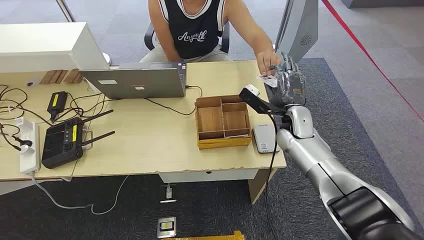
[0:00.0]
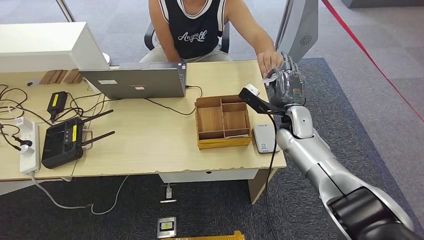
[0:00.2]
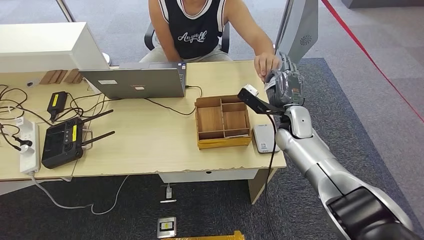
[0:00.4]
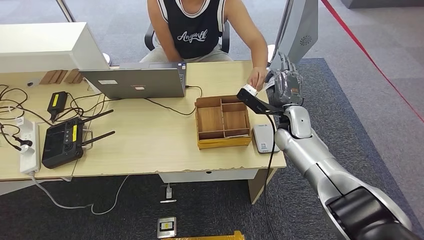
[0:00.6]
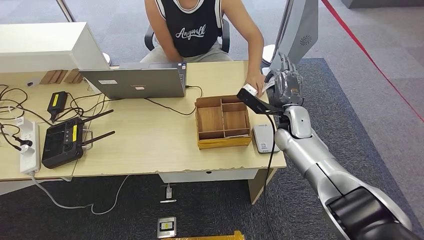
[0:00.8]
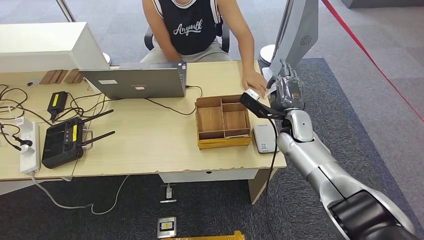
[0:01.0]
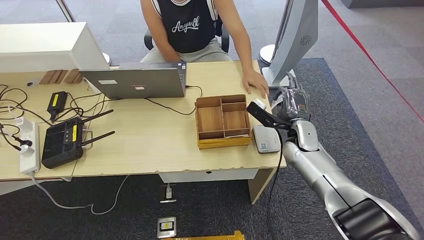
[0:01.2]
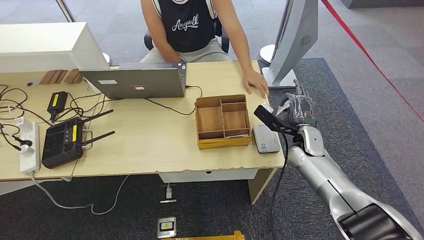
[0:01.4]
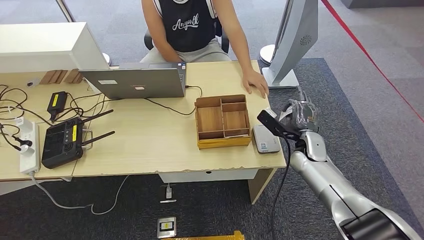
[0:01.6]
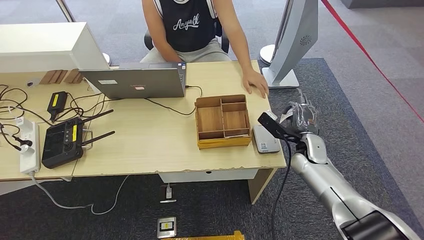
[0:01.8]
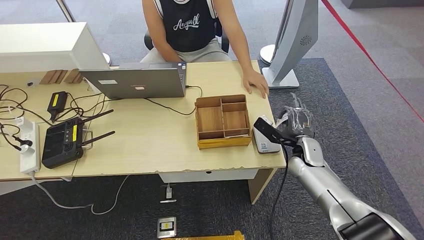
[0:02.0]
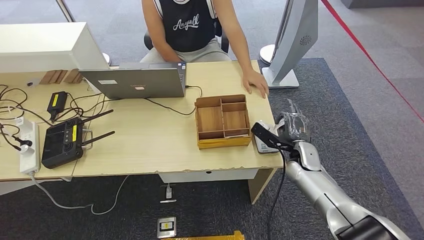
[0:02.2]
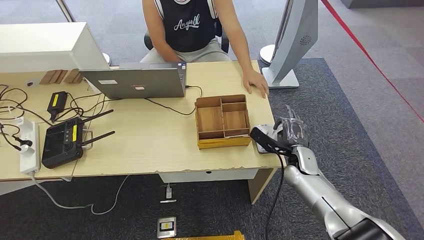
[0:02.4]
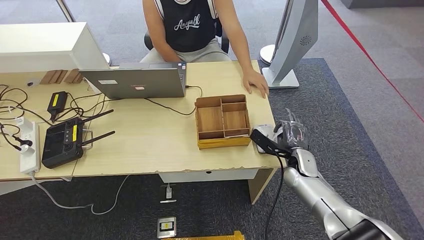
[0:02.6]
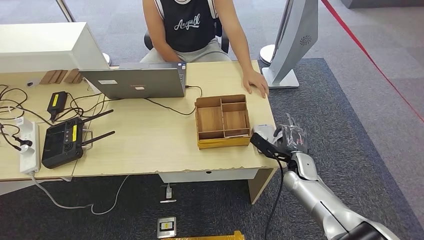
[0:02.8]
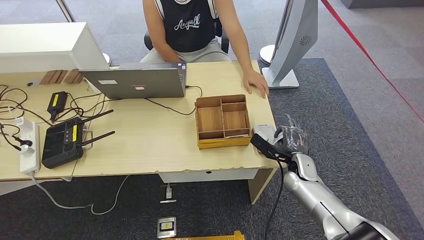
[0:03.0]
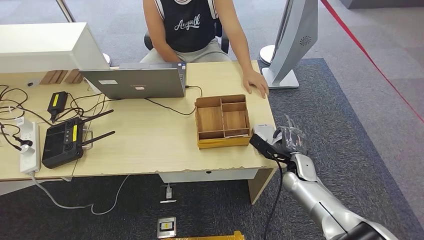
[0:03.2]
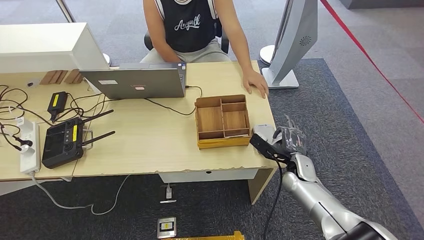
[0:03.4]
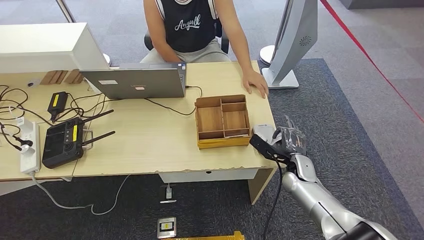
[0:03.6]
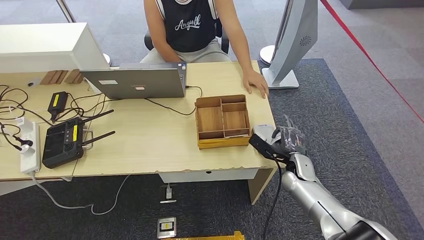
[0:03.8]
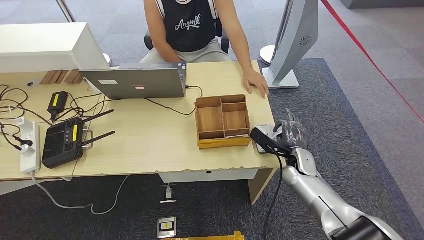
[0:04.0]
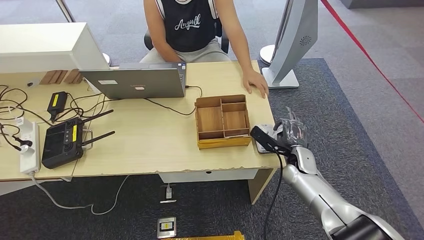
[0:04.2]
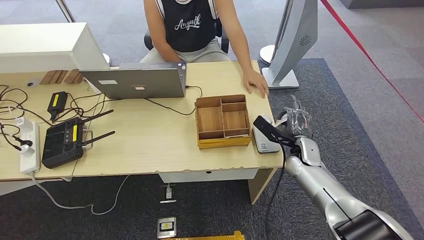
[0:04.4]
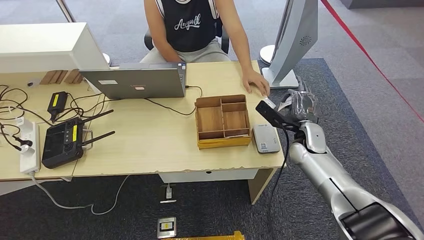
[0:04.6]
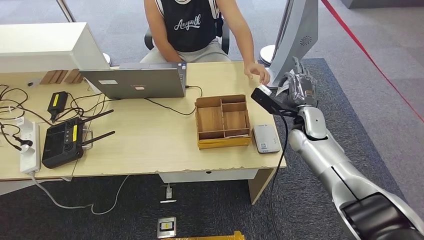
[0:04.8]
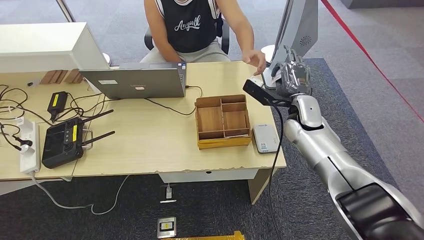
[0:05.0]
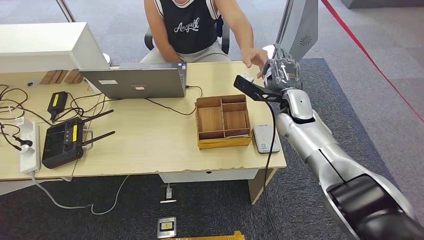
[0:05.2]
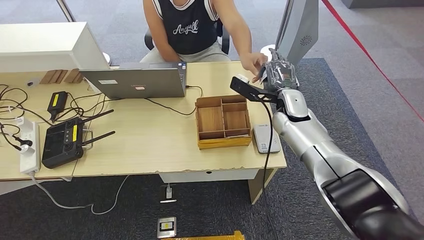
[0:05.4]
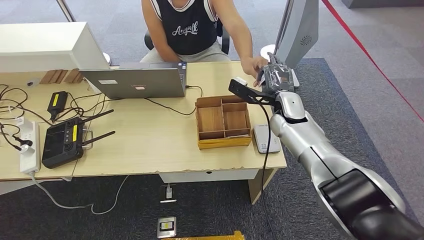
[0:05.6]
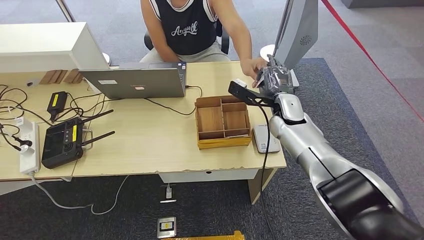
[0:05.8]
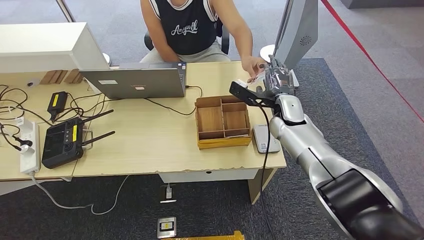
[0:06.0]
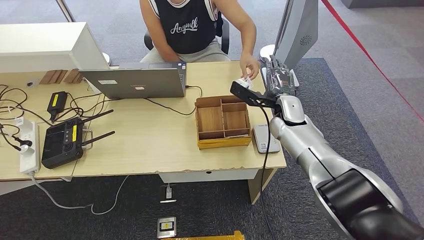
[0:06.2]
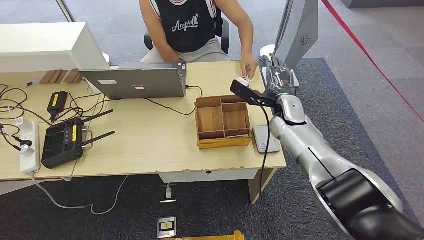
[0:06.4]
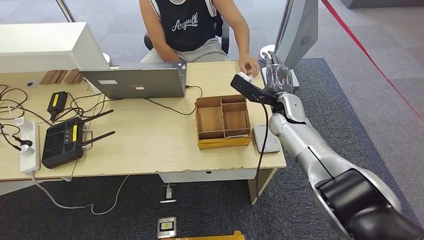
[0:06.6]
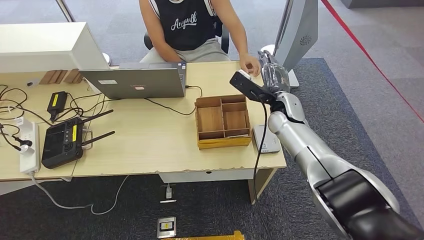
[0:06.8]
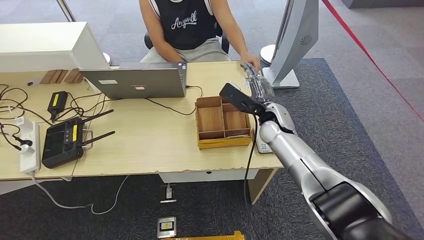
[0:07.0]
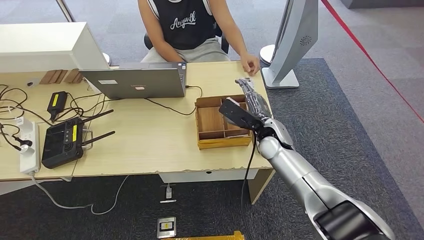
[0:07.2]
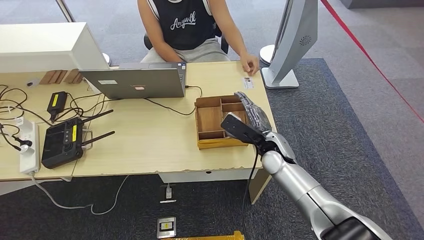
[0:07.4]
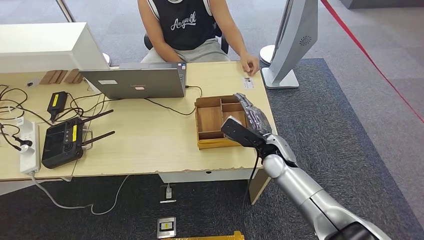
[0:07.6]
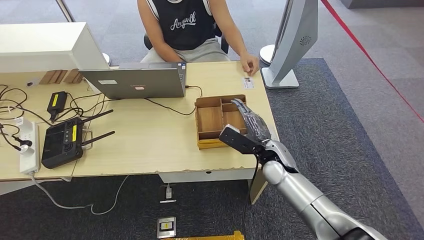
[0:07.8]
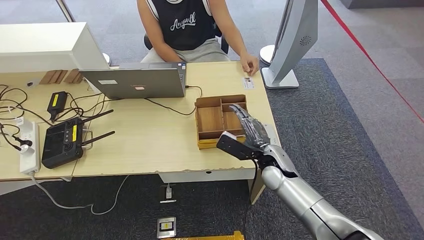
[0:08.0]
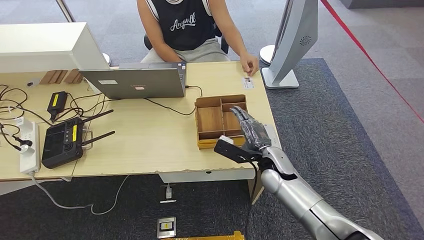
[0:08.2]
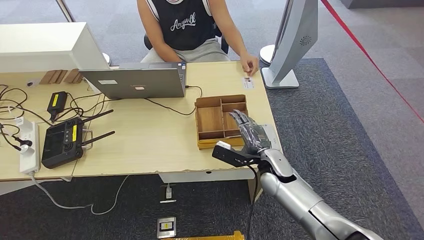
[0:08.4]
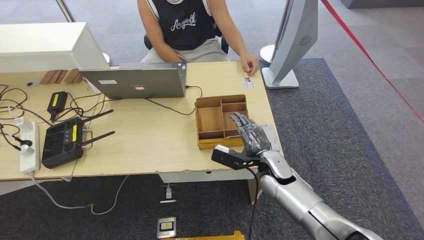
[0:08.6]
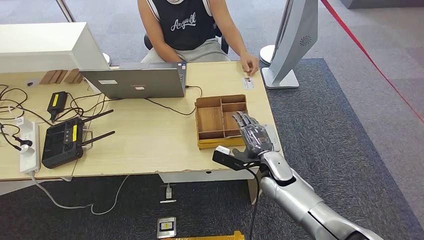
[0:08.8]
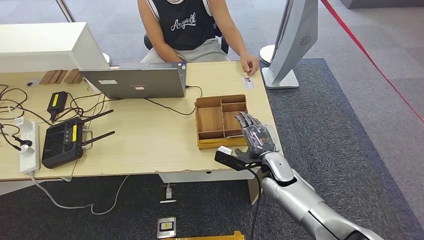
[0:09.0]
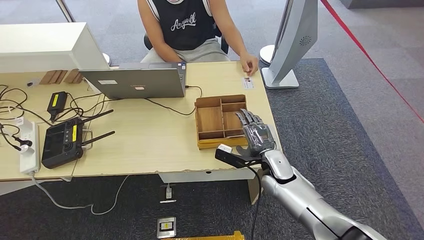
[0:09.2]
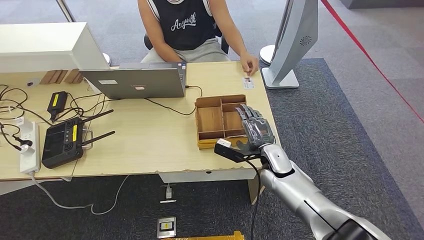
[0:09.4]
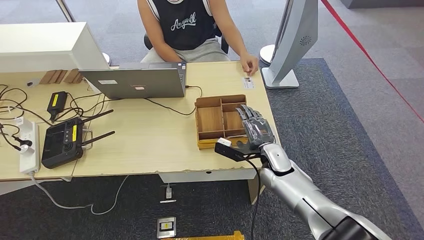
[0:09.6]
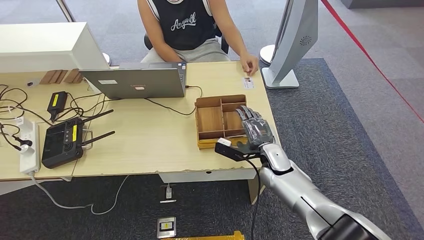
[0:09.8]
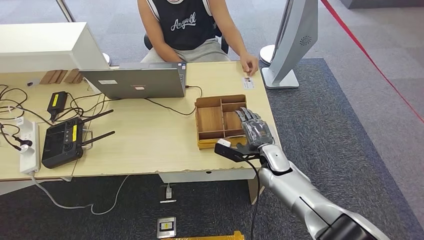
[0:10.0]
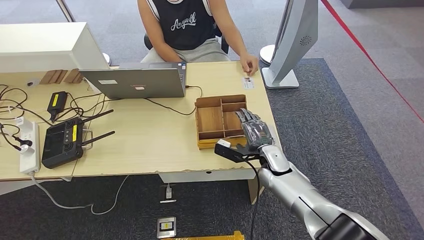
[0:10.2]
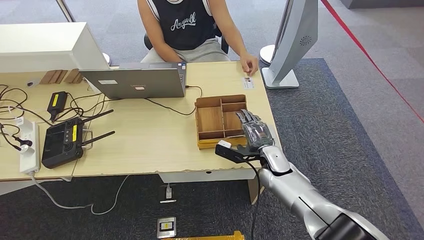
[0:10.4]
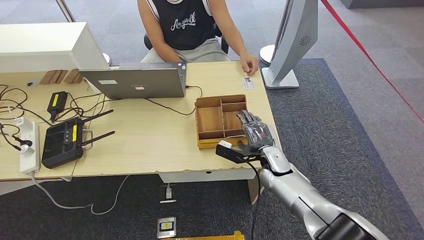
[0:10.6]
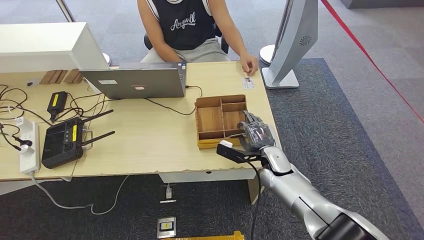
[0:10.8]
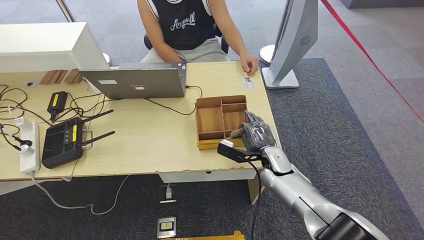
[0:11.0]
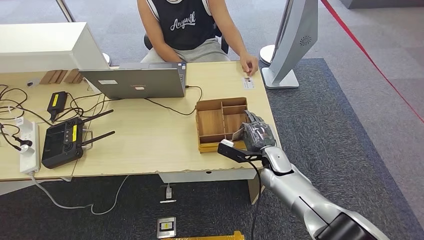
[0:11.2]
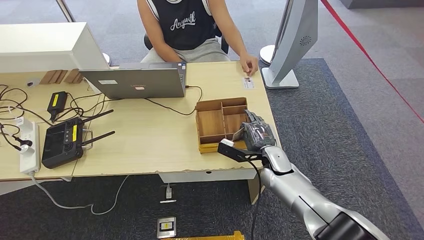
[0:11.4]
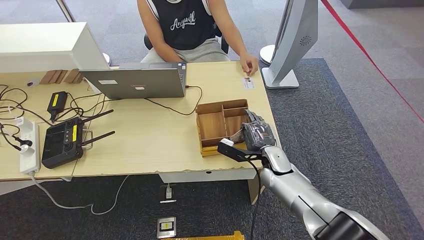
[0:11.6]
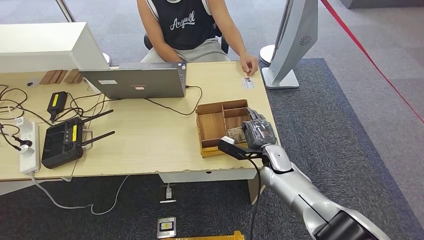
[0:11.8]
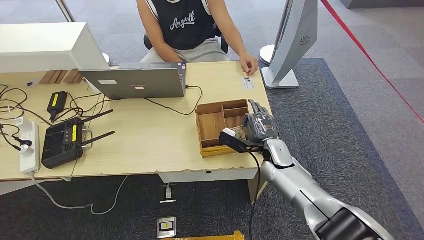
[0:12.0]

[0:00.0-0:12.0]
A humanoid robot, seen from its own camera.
Step, 0:00.0 to 0:01.0: Take the ID card from the person's hand.
Step, 0:01.2 to 0:04.4: Place the ID card on the card reader.
Step, 0:04.6 to 0:06.8: Hand the ID card to the person.
Step, 0:07.2 to 0:11.4: Pick up the room key from the key card box.
0:01.6 to 0:03.0: The right hand is displaced downward by about 5 cm.
0:03.0 to 0:04.4: The right hand shifts by approximately 5 cm.
0:04.4 to 0:06.0: The right hand moves upward, forward and to the left, approximately 15 cm.
0:06.0 to 0:07.6: The right hand goes roughly 10 cm backward and downward.
0:07.6 to 0:09.0: The right hand shifts by approximately 5 cm.
0:09.0 to 0:12.0: The hands stay close to where they were, moving slightly.

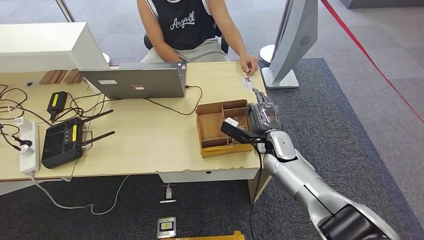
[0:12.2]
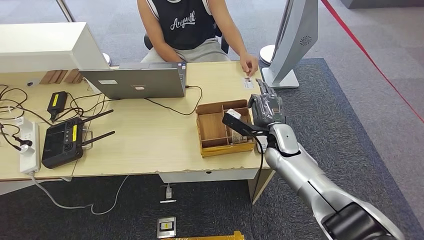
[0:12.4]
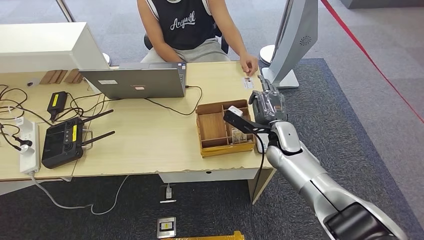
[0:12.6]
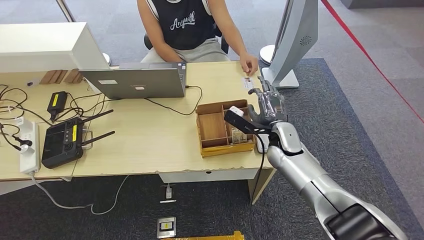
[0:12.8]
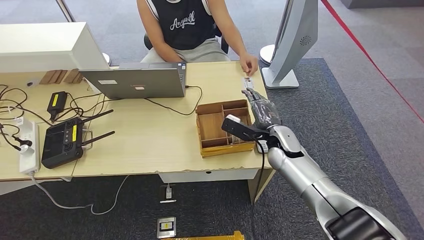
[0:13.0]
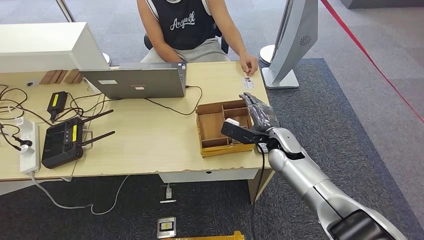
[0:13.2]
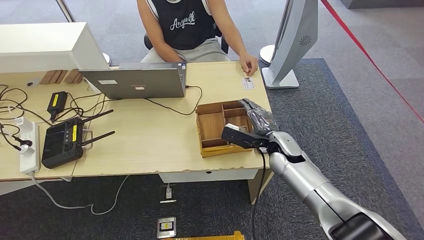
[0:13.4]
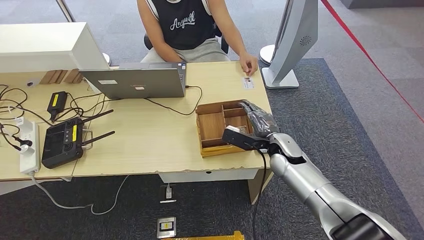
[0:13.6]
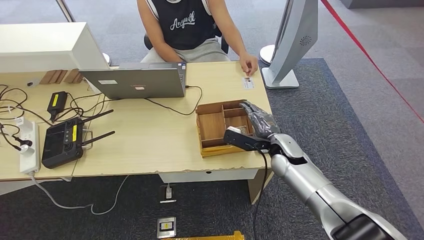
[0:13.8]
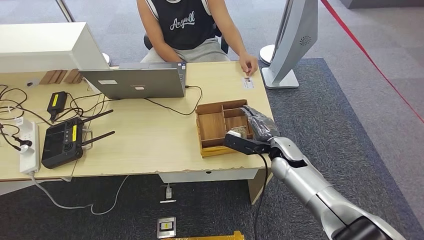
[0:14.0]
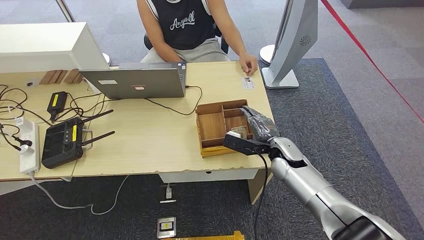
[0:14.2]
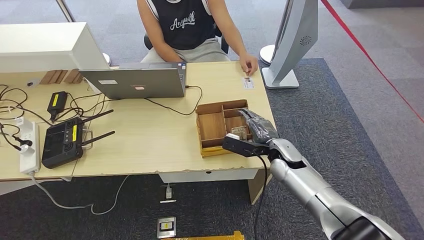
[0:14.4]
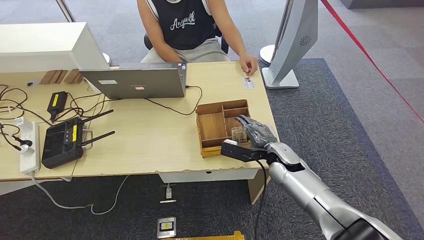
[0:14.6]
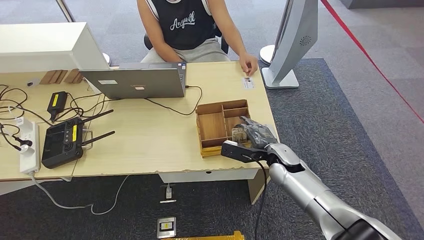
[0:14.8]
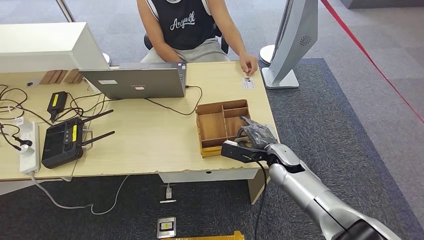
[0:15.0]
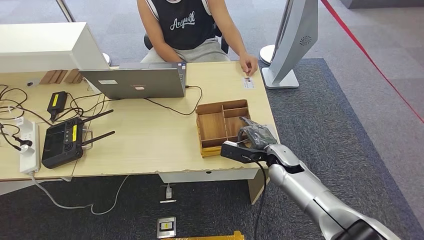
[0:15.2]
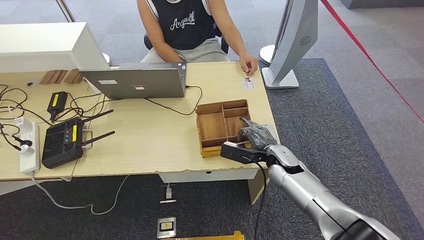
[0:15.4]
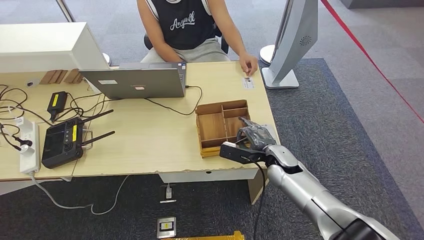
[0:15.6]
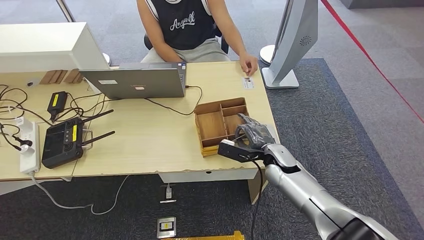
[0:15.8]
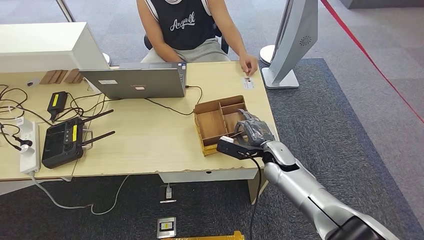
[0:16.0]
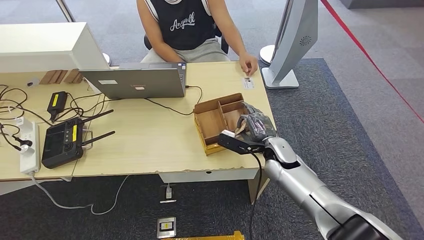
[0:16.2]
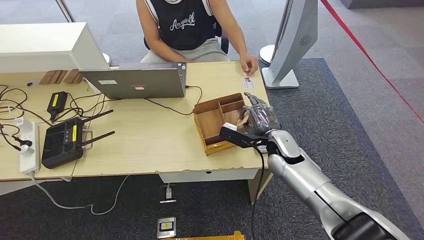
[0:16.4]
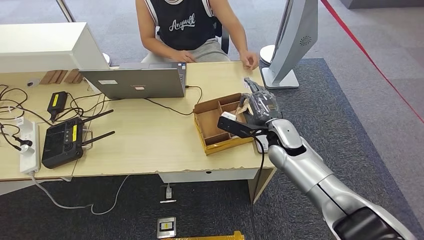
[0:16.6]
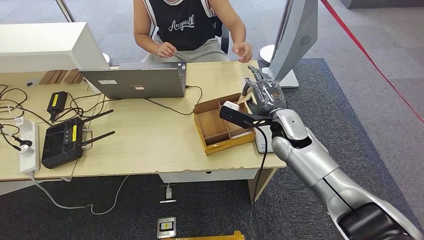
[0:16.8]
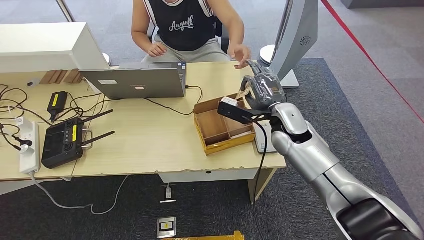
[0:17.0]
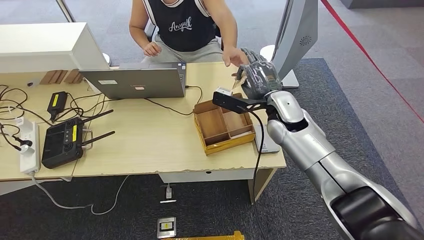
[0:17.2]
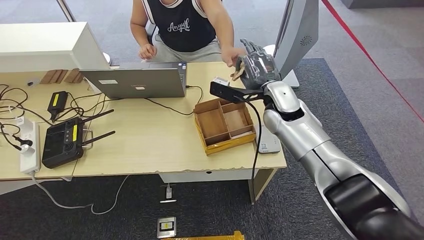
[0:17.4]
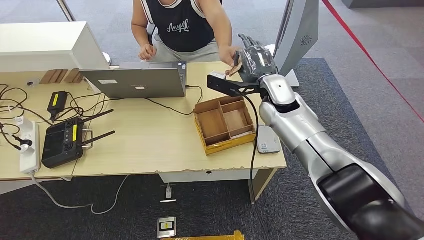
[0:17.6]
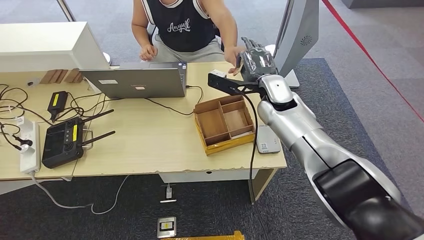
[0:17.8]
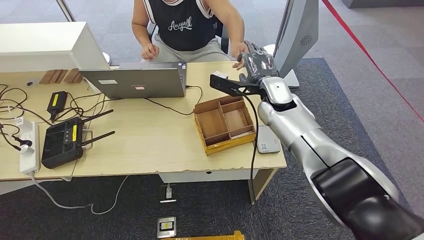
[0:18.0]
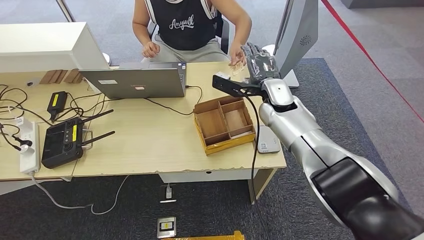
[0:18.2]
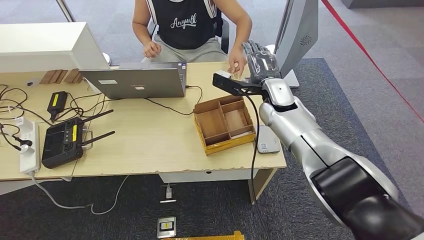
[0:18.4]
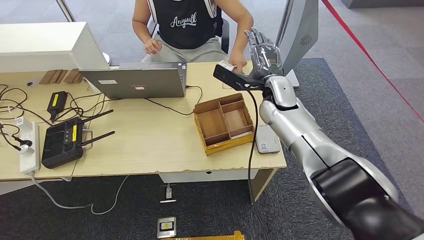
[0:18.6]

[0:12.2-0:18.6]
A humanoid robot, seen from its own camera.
0:12.2 to 0:13.8: There are only small adjustments of the hands.
0:13.8 to 0:15.4: The hands stay close to where they were, moving slightly.
0:15.4 to 0:17.0: The right hand moves upward, roughly 15 cm.
0:17.0 to 0:18.6: The right hand goes approximately 5 cm forward.
